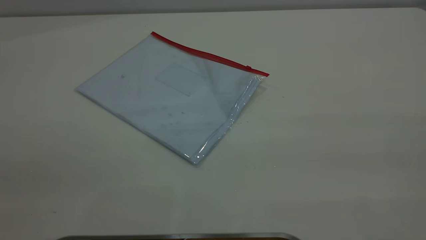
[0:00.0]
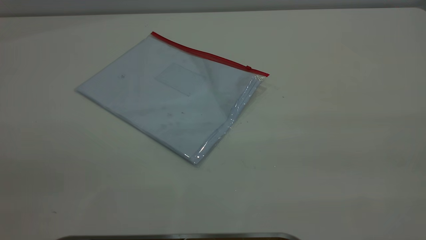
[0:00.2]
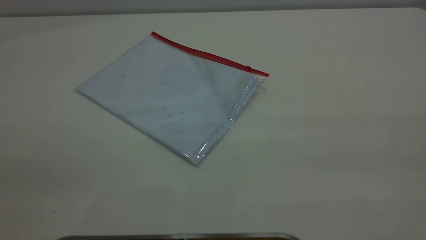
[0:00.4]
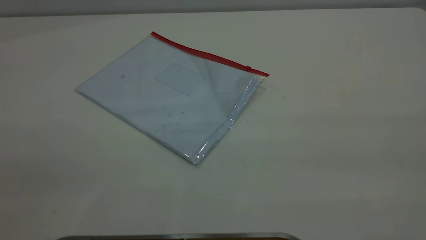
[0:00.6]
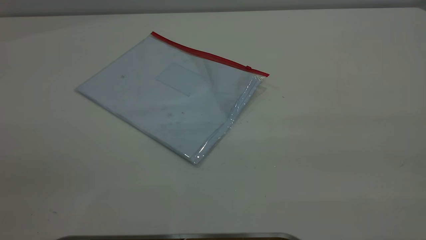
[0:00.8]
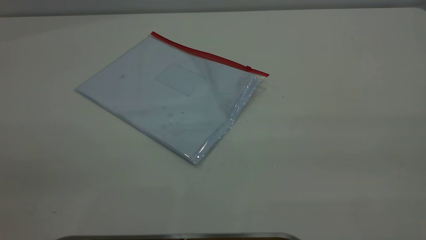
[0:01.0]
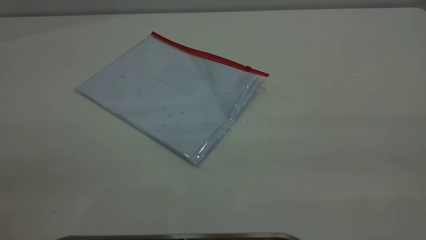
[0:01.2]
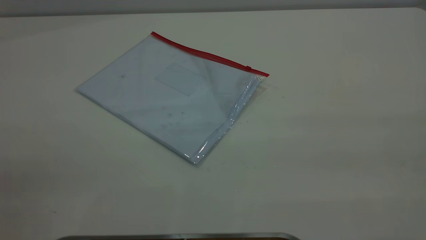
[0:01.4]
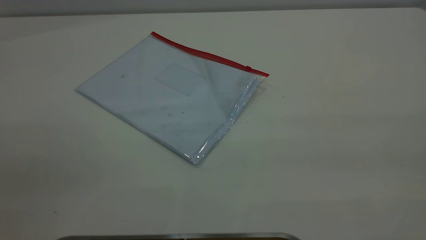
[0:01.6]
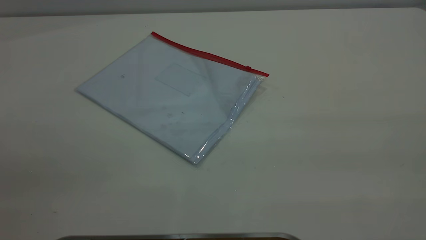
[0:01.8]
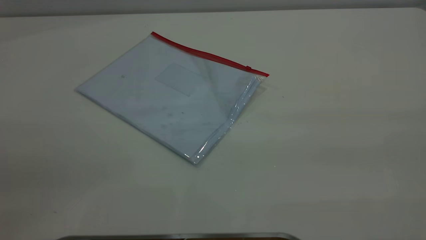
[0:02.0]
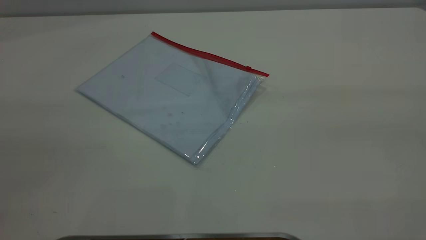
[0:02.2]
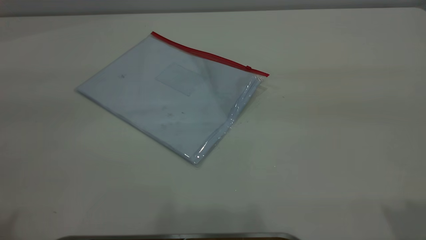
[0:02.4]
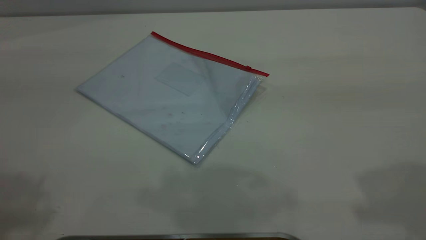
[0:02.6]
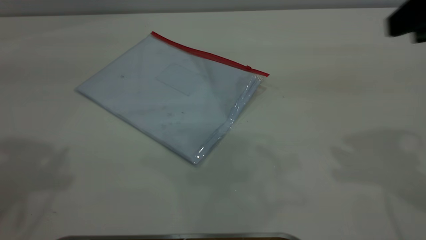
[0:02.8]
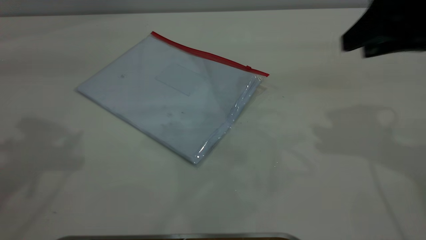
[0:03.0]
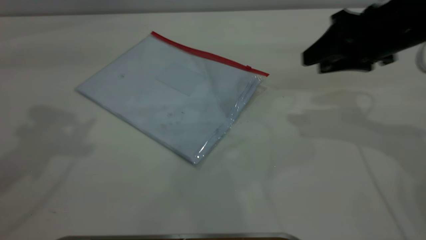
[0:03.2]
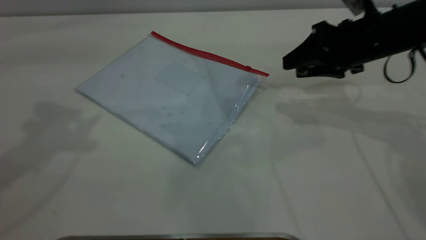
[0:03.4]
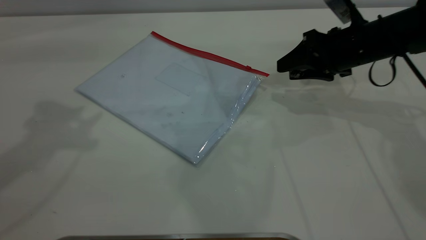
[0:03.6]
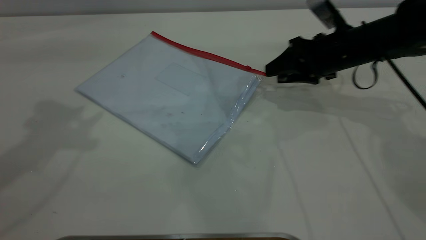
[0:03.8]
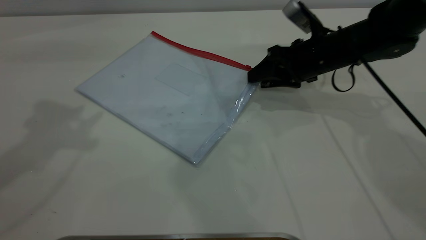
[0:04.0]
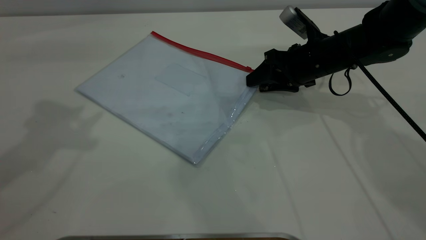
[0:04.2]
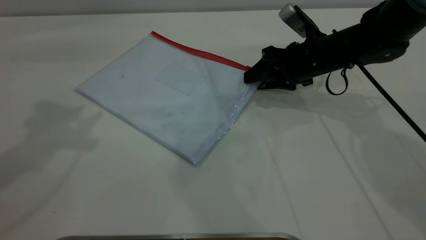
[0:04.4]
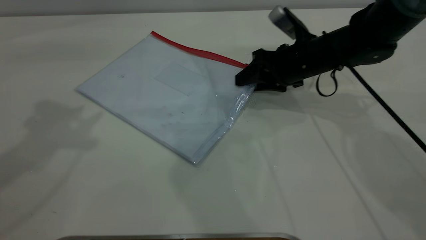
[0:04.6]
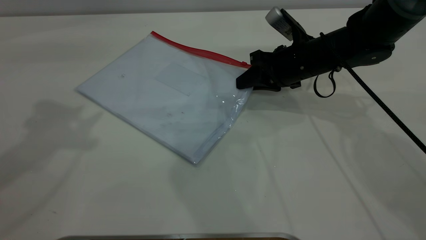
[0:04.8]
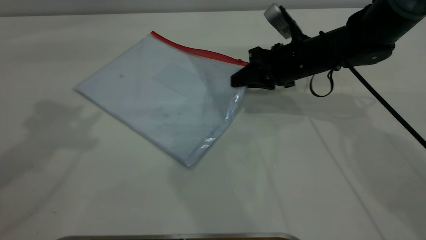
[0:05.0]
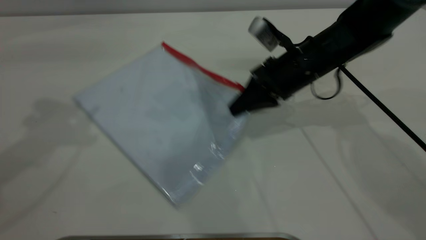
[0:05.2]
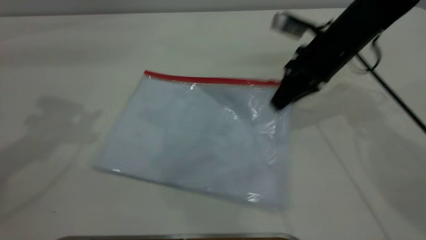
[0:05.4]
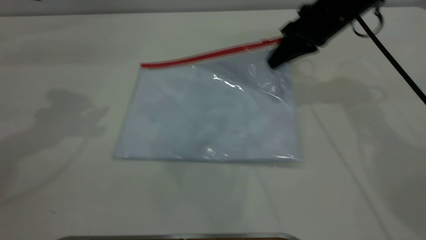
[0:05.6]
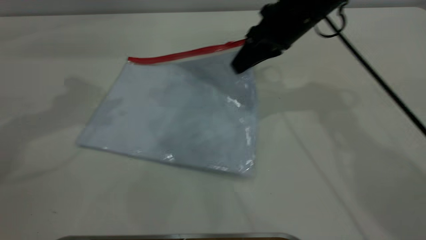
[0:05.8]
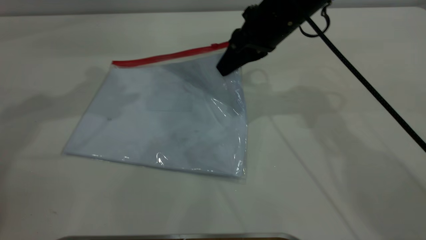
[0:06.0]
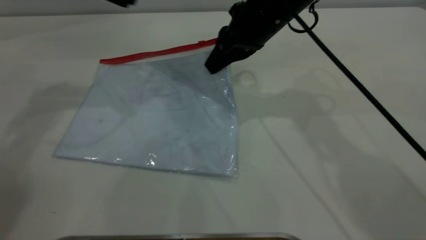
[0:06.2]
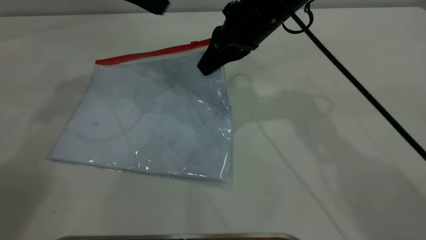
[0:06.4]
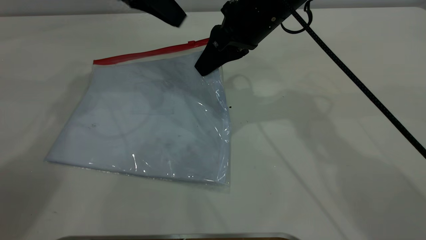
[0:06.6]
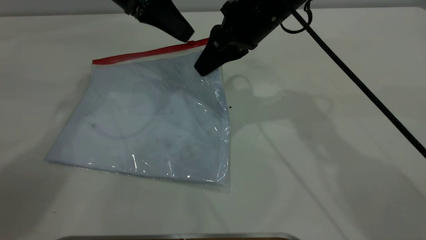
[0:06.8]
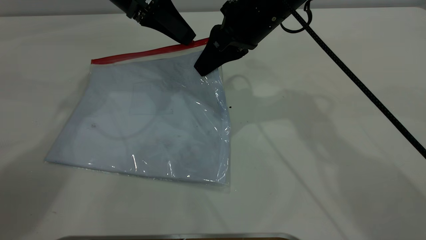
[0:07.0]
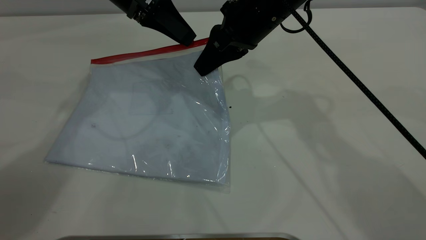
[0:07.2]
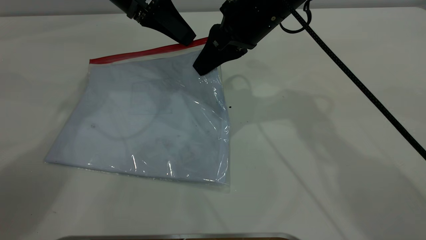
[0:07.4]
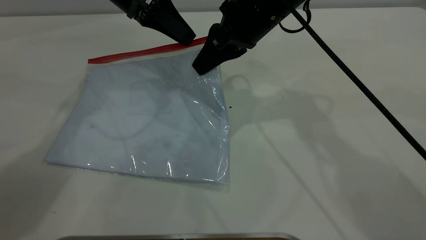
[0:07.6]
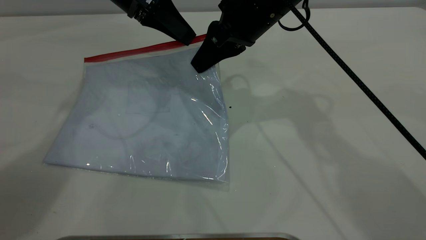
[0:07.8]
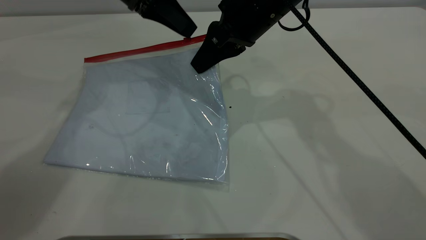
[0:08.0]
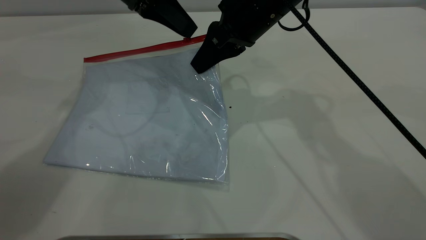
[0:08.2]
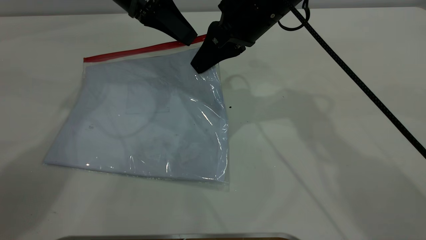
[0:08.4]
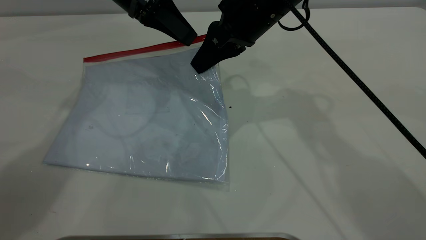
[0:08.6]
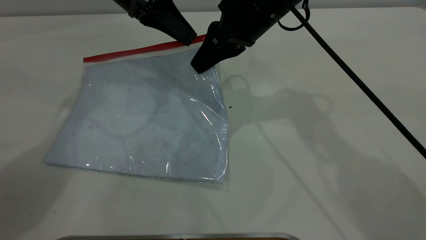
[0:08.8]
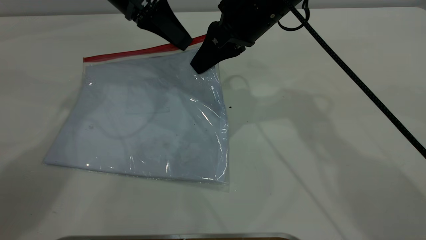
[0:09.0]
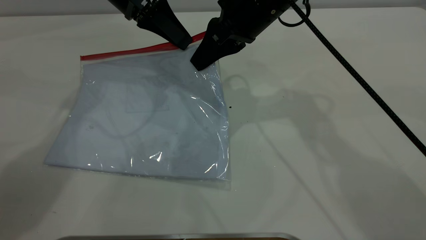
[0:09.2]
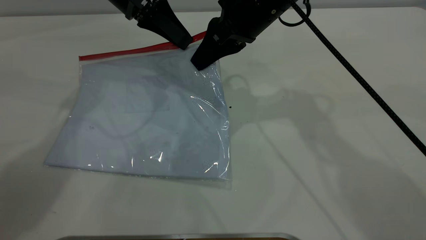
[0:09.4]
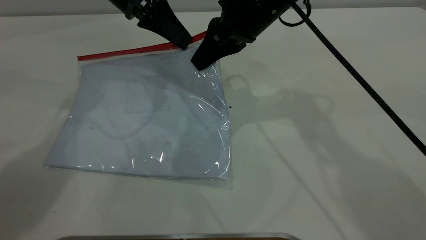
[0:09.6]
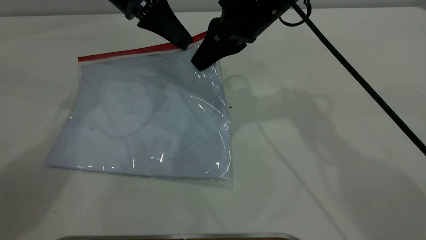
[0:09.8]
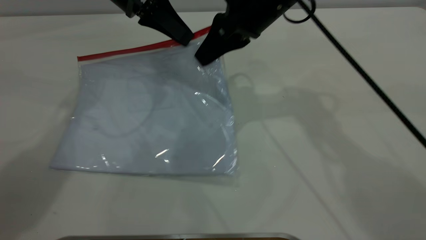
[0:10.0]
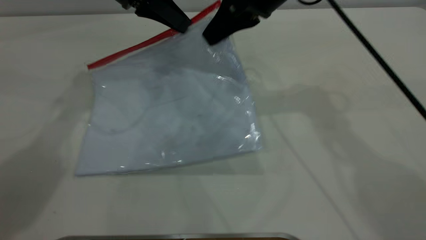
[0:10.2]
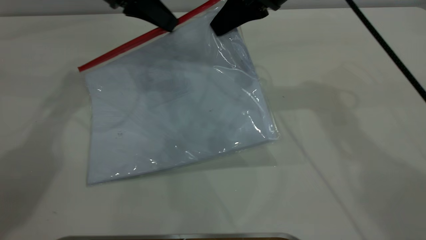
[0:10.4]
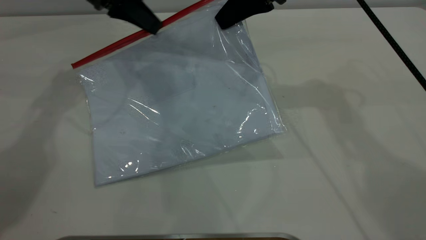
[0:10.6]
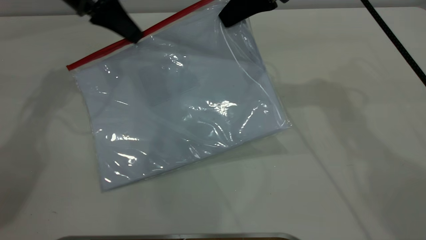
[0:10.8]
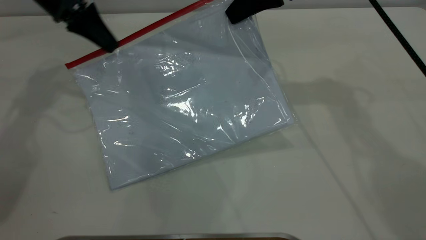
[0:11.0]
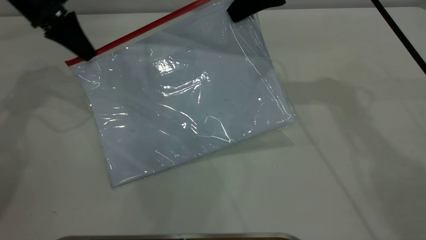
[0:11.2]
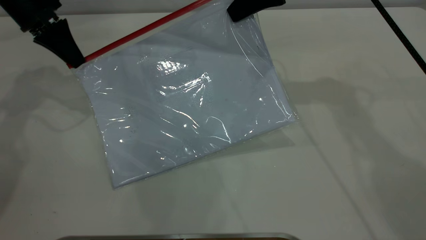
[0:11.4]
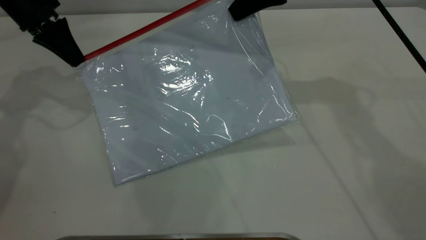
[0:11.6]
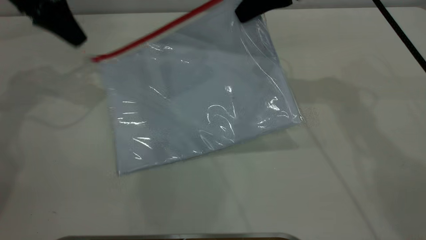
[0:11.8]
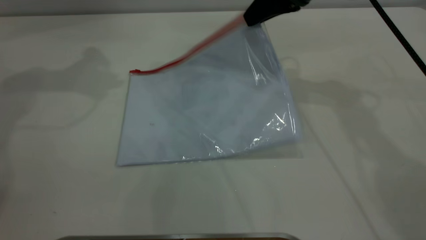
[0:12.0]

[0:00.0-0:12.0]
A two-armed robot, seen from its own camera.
Step, 0.0 to 6.0 s: Pick up the transparent plastic bag with the right gripper.
Step, 6.2 to 11.6 s: Pulling up the zipper on the transparent plastic bag with the left gripper to close it.
0.0 to 1.6 s: The two grippers keep their place.
1.6 to 3.0 s: The right gripper is displaced forward and downward by approximately 35 cm.
3.0 to 4.4 s: The right gripper shifts some 20 cm downward, forward and to the left.
4.4 to 6.0 s: The left gripper shifts some 15 cm forward and downward. Meanwhile the right gripper is displaced upward and to the left by approximately 15 cm, and closes its fingers.
6.0 to 7.6 s: The left gripper heads to the right and downward, covering about 15 cm.
7.6 to 9.0 s: Neither gripper changes place.
9.0 to 10.4 s: The left gripper closes up. Meanwhile the right gripper shifts by approximately 5 cm.
10.4 to 12.0 s: The right gripper opens its fingers. The left gripper goes roughly 15 cm upward and to the left, and opens its fingers.

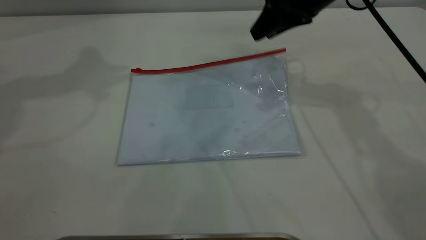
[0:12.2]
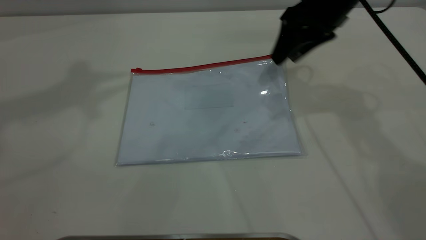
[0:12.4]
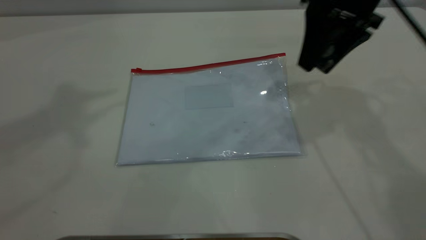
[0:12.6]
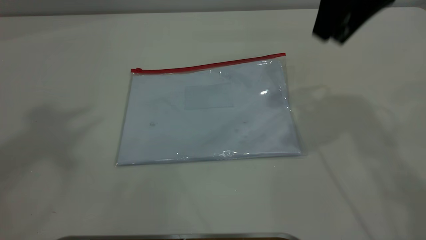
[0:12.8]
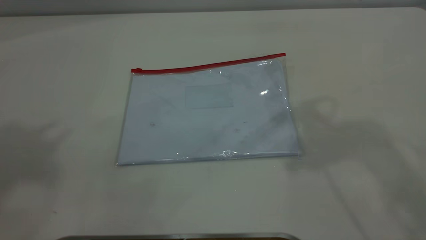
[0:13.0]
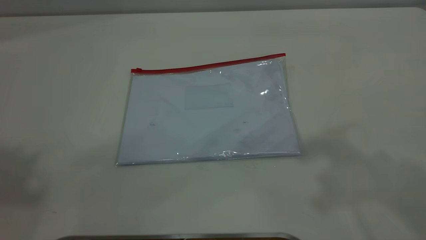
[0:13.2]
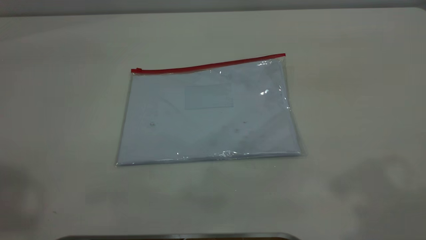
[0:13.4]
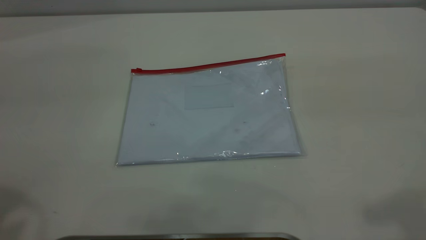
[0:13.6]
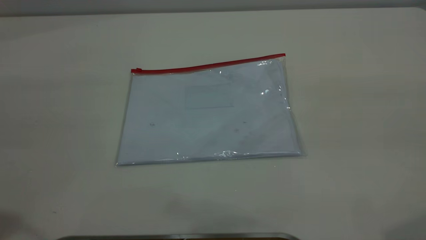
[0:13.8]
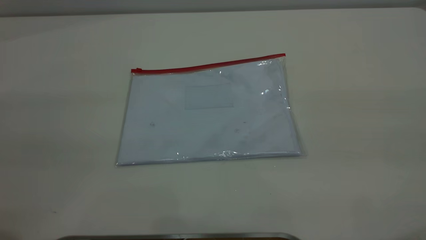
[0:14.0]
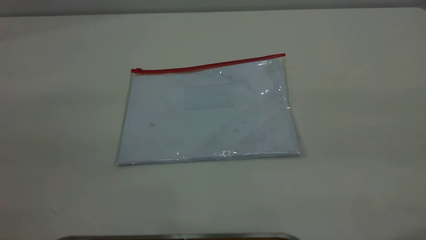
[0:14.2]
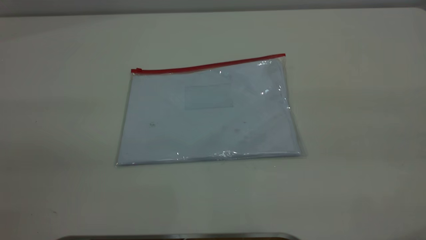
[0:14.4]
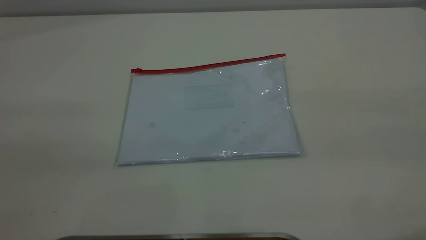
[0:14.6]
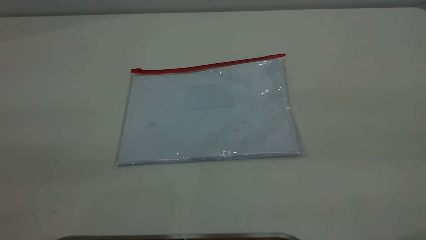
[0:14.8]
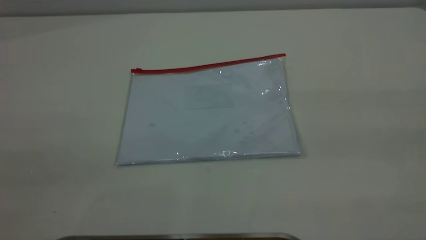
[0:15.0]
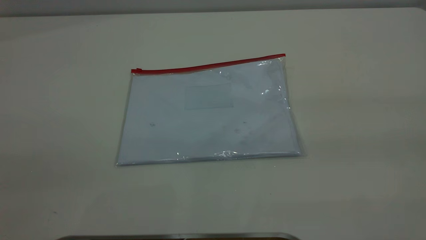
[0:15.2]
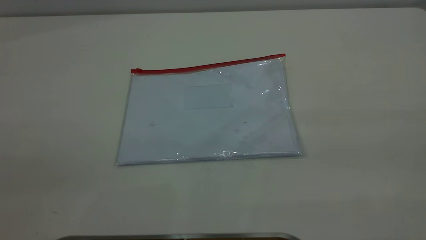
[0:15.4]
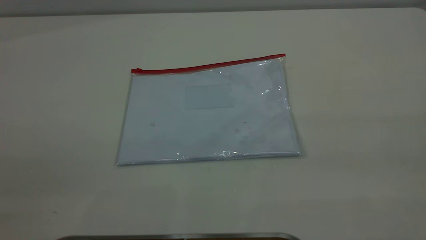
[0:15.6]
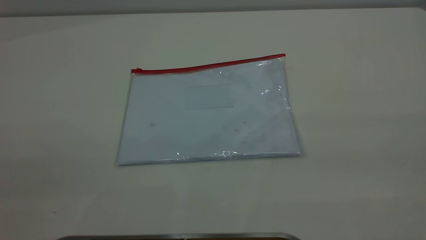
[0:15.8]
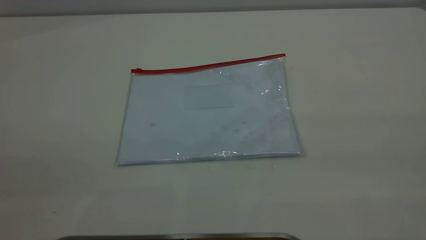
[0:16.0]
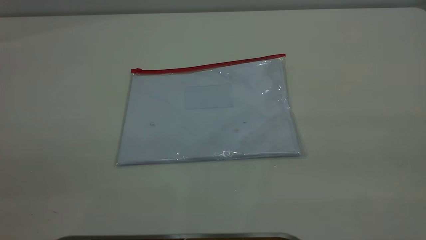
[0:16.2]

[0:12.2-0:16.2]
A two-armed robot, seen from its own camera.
Step, 12.2 to 12.8 s: Place the transparent plastic bag.
12.2 to 13.6 s: The left gripper travels backward by roughly 30 cm. Meanwhile the right gripper shifts about 35 cm backward and upward.

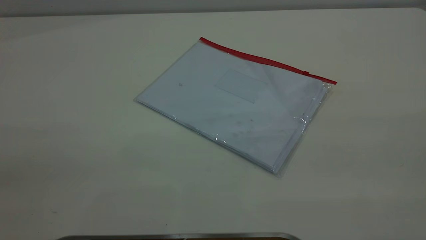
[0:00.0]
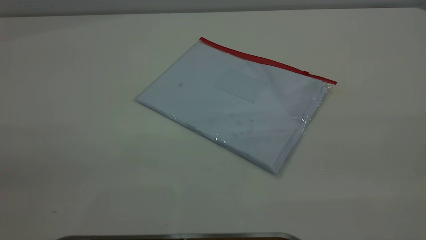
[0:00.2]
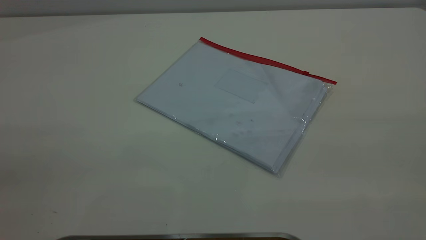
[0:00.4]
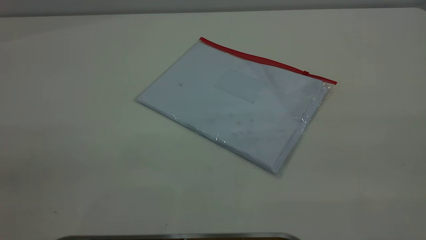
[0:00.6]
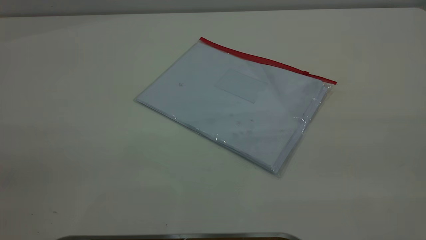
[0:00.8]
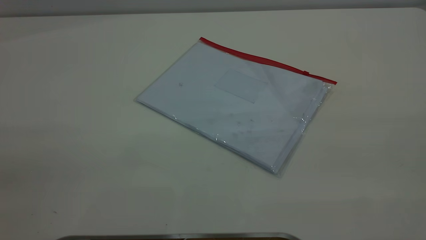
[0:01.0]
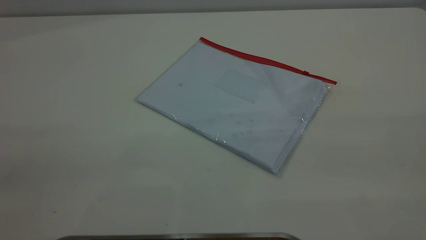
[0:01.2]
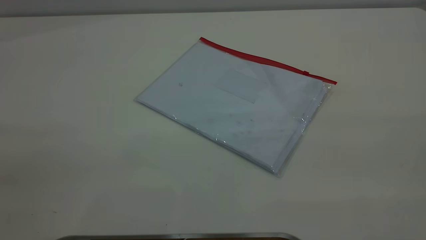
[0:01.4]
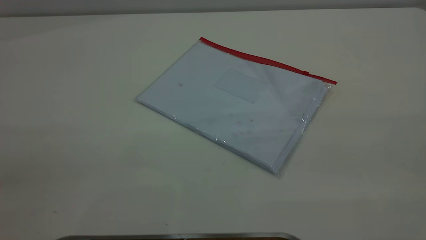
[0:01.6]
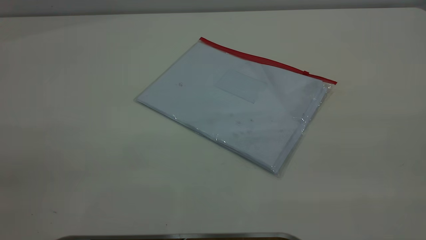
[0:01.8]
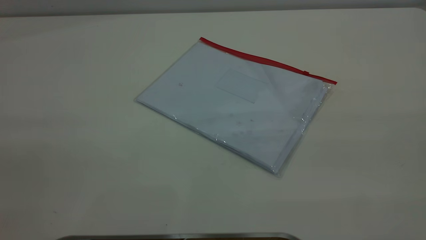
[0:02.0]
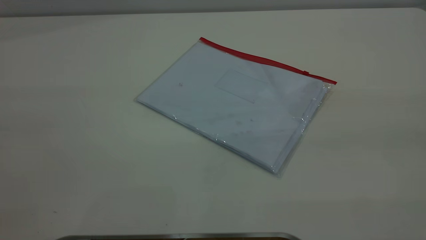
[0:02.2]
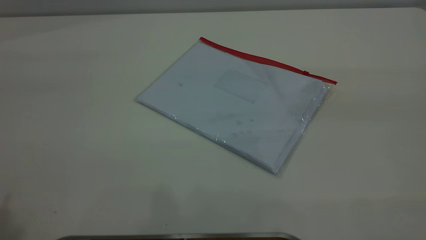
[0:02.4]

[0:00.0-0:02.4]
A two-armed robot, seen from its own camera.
0.0 to 1.2 s: Both grippers stay about where they are.
